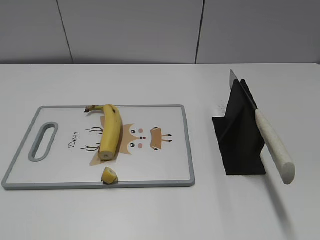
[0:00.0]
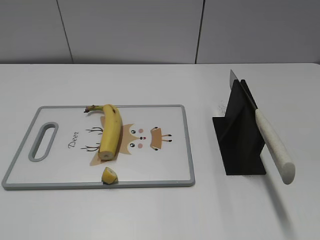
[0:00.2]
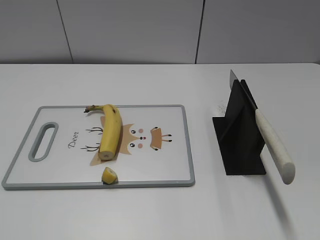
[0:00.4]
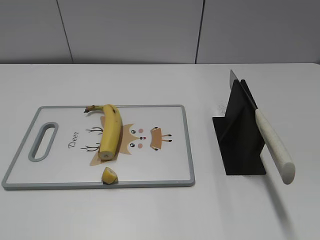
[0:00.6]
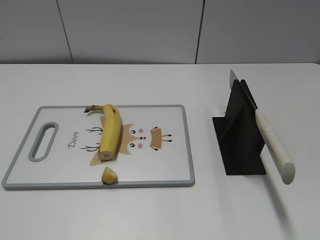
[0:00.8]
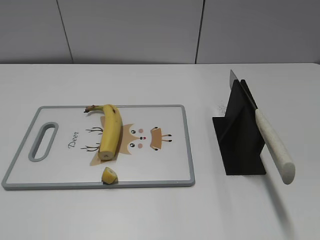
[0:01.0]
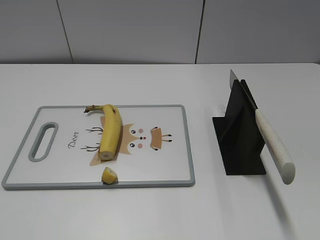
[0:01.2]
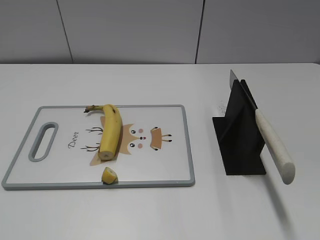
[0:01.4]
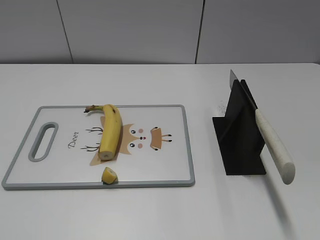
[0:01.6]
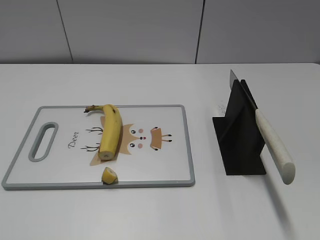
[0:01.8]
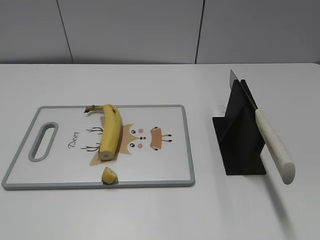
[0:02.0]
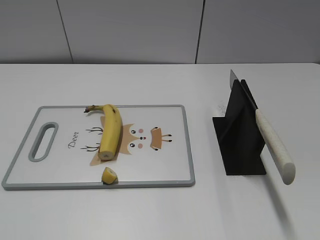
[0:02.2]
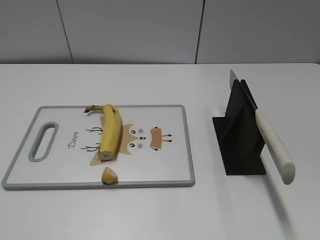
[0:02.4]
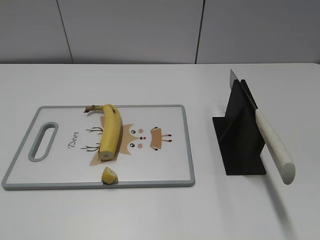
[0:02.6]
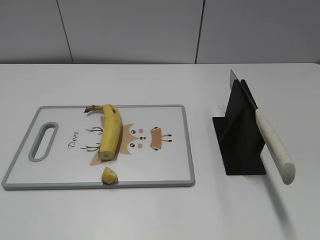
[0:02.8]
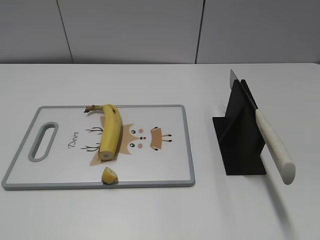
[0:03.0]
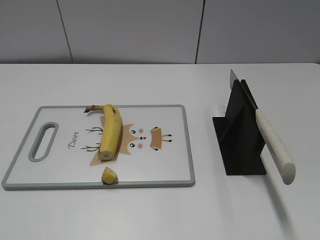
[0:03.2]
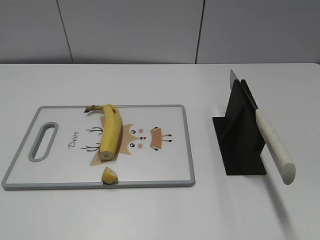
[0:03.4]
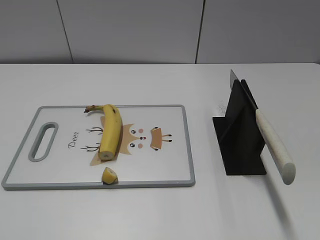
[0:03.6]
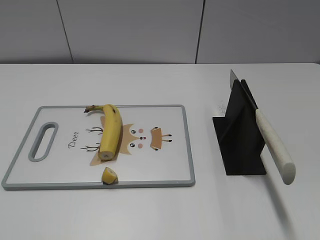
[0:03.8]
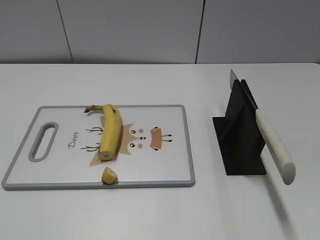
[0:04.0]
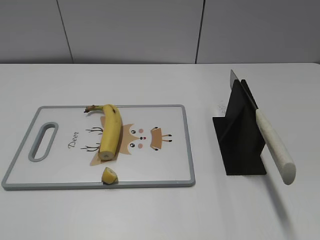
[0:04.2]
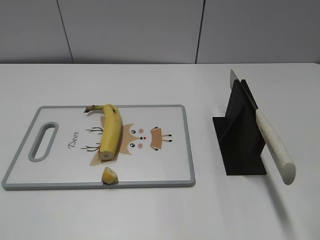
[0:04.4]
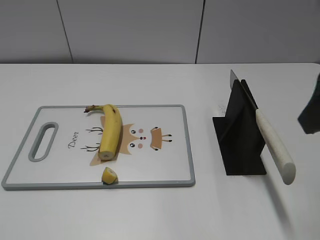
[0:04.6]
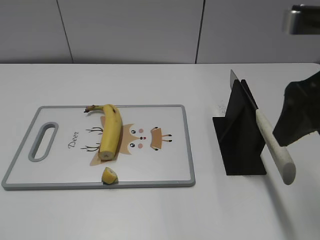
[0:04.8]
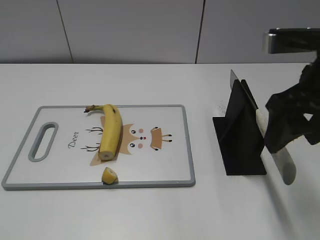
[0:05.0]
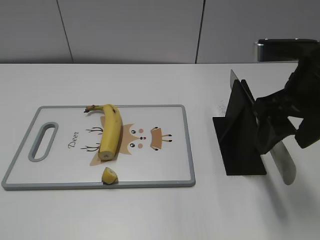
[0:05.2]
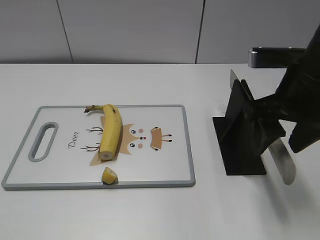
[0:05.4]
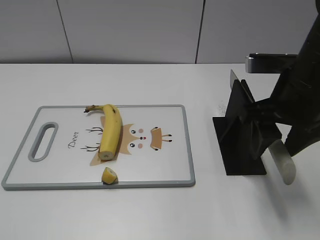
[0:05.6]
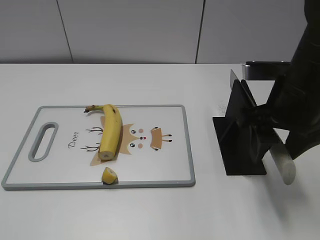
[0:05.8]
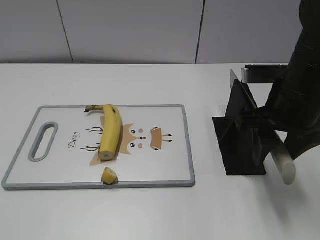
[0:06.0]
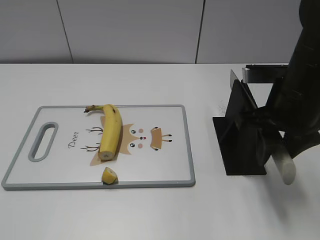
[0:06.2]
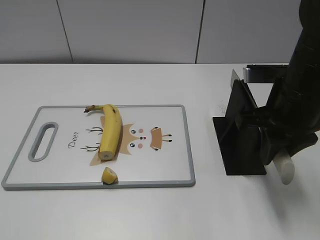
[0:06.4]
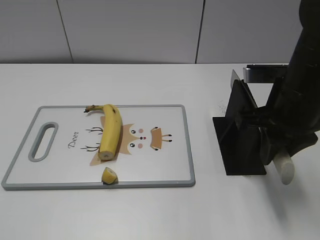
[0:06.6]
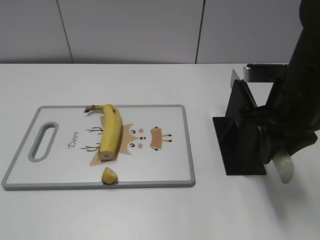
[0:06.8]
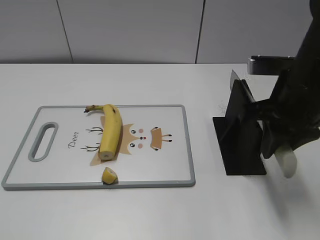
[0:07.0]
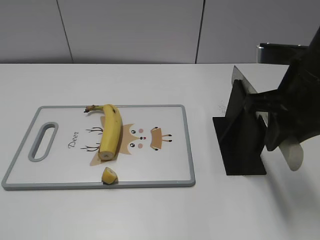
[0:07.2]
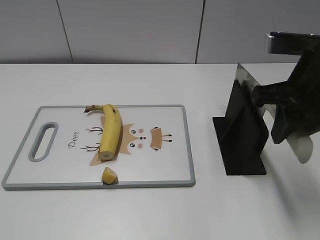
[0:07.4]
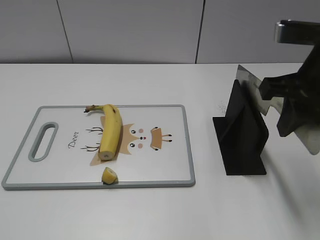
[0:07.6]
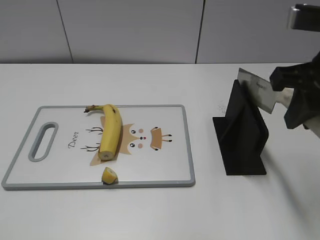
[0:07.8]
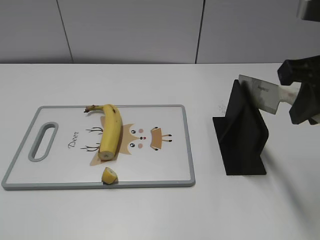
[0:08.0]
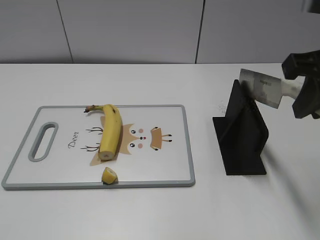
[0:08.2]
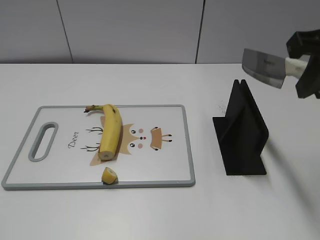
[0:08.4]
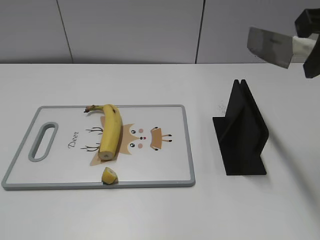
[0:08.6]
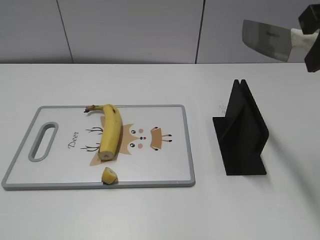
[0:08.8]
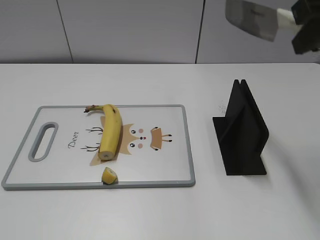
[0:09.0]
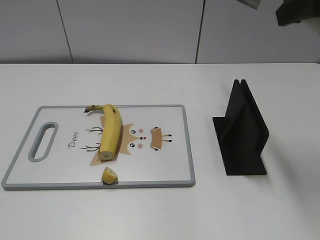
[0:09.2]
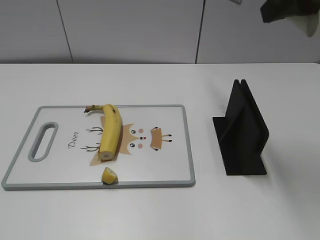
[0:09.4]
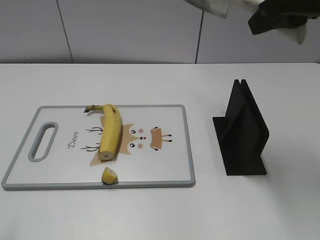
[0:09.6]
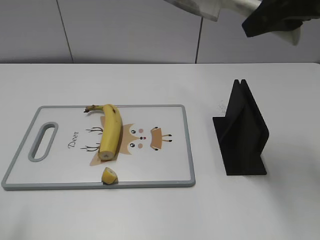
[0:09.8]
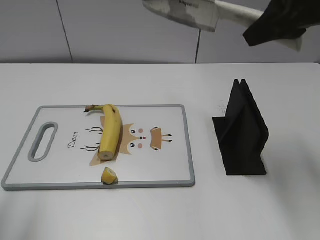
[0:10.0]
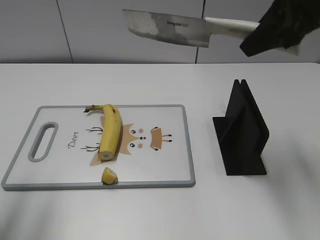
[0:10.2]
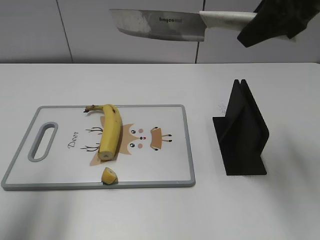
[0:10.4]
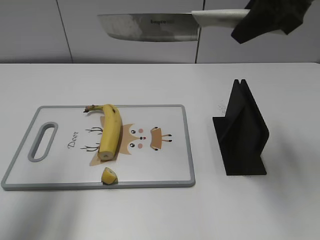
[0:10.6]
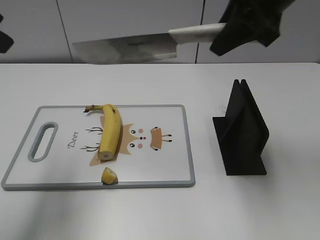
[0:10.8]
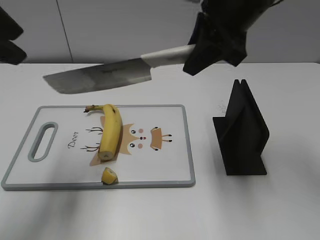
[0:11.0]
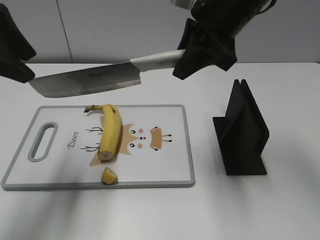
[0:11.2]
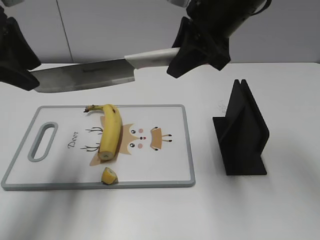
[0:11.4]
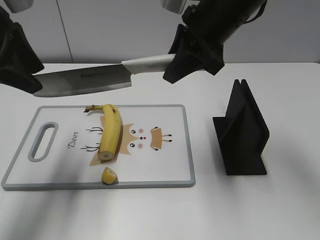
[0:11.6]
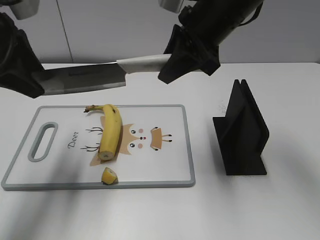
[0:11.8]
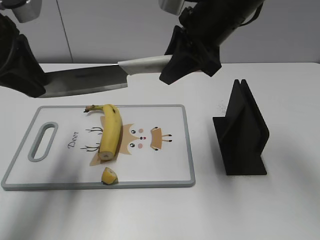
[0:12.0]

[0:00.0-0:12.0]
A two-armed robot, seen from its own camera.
Task of the whole recording: cut banana.
Step, 0:00.0 to 0:08.0: Grab the knife handle with your right hand.
0:04.4 to 0:06.0: The right gripper moves downward, forward and to the left, about 15 cm, and closes its fingers.
0:06.0 to 0:07.6: The right gripper heads upward, covering roughly 5 cm, and closes.
0:07.6 to 0:09.0: The right gripper heads upward, covering approximately 10 cm.
0:09.0 to 0:10.4: The left gripper is displaced forward and upward by about 20 cm; the right gripper shifts about 5 cm forward.
0:10.4 to 0:12.0: The right gripper goes roughly 10 cm to the left and downward, while the left gripper is displaced forward and downward by about 15 cm.

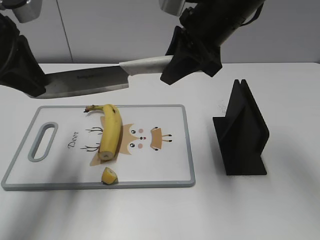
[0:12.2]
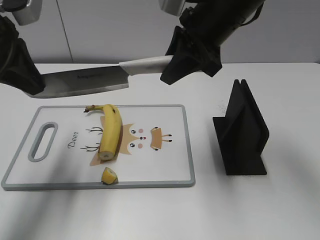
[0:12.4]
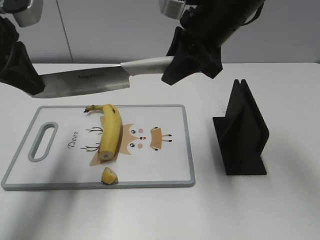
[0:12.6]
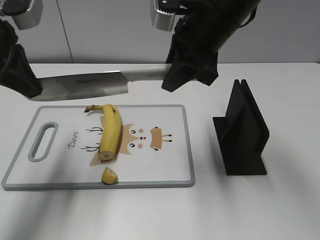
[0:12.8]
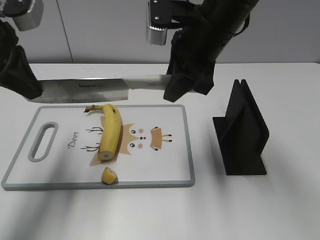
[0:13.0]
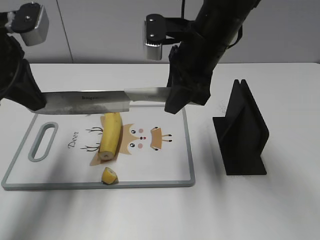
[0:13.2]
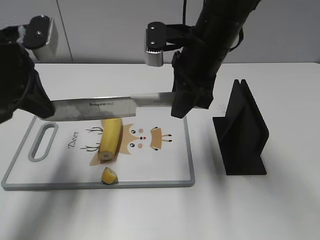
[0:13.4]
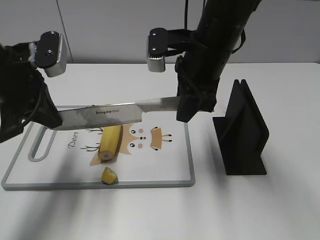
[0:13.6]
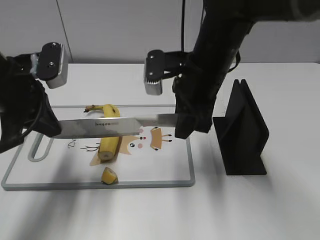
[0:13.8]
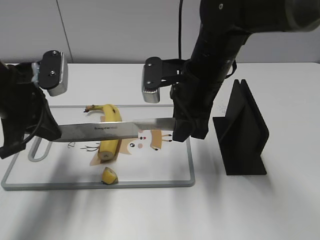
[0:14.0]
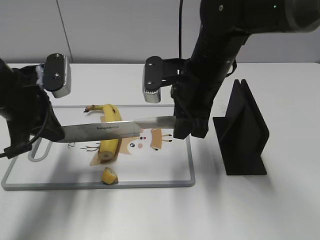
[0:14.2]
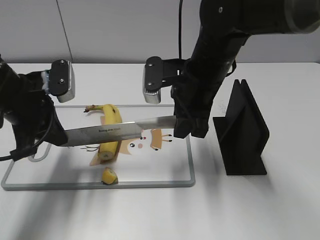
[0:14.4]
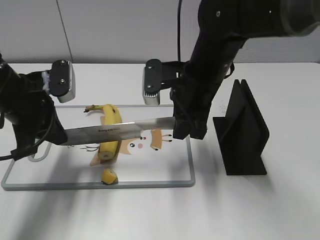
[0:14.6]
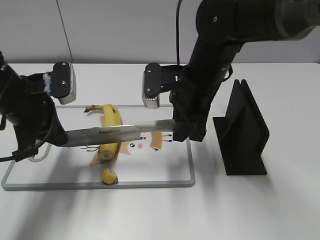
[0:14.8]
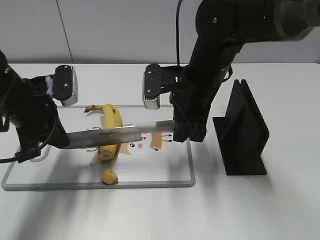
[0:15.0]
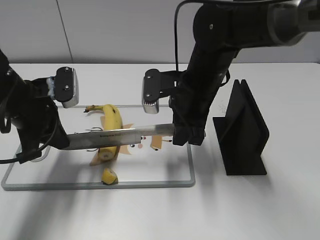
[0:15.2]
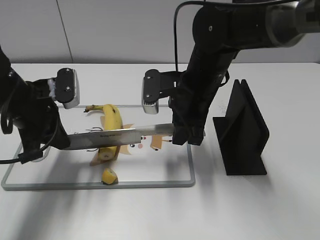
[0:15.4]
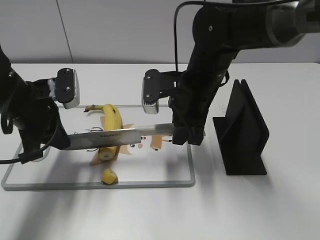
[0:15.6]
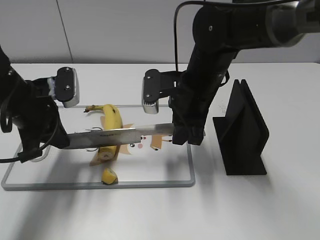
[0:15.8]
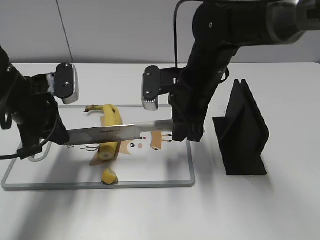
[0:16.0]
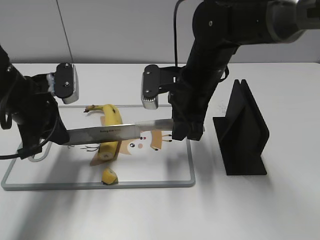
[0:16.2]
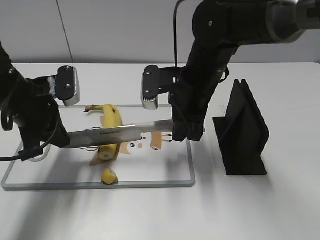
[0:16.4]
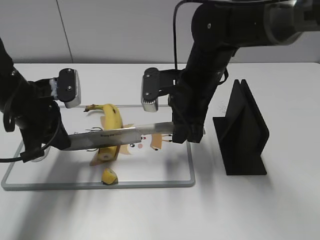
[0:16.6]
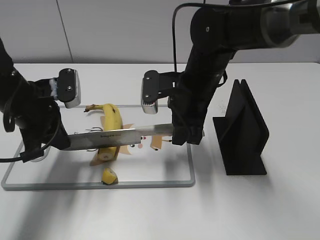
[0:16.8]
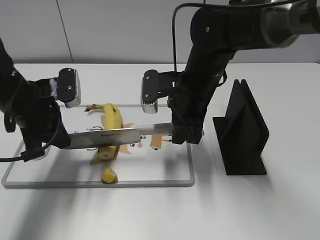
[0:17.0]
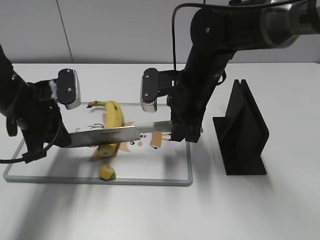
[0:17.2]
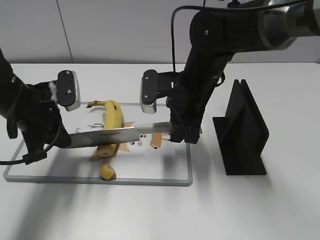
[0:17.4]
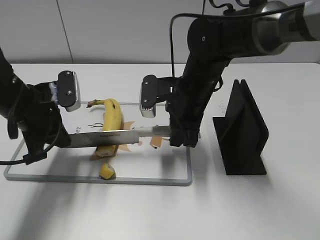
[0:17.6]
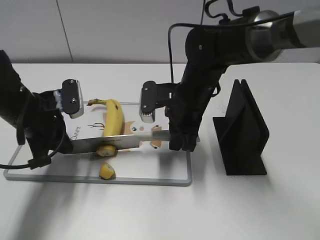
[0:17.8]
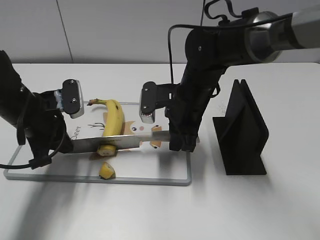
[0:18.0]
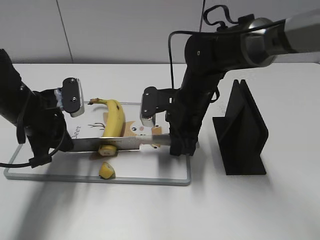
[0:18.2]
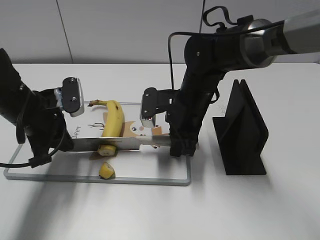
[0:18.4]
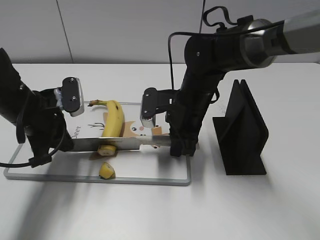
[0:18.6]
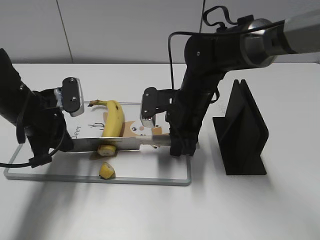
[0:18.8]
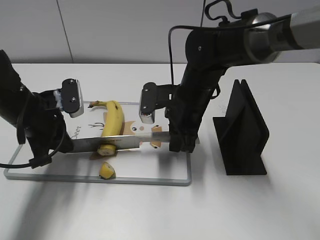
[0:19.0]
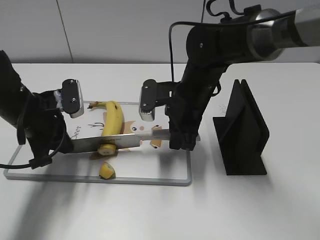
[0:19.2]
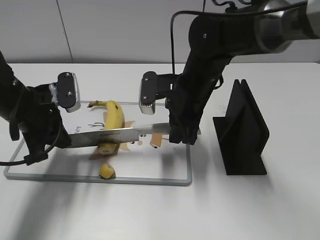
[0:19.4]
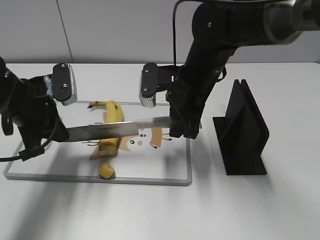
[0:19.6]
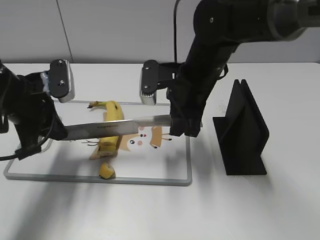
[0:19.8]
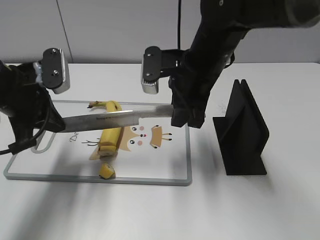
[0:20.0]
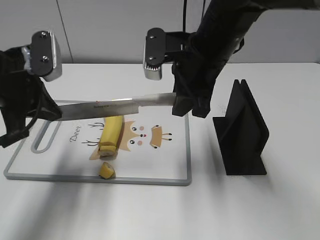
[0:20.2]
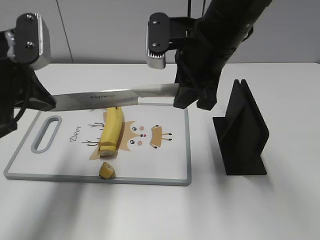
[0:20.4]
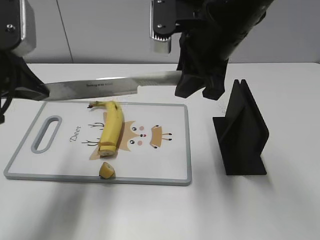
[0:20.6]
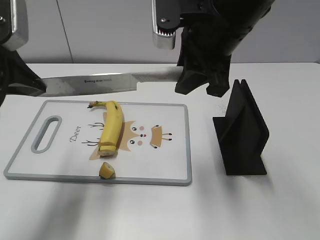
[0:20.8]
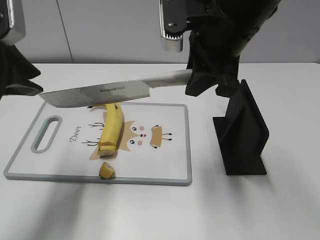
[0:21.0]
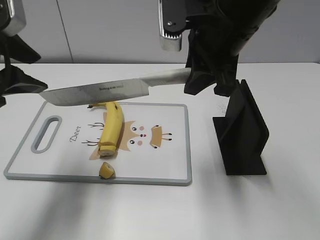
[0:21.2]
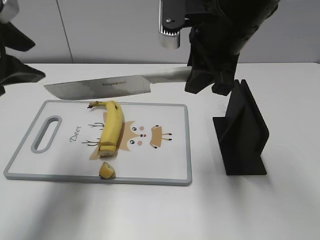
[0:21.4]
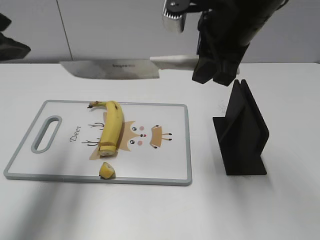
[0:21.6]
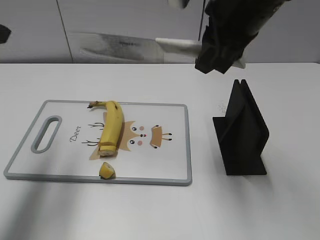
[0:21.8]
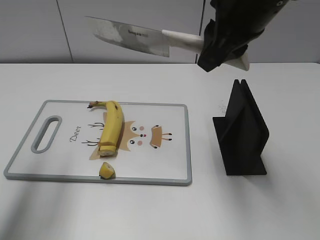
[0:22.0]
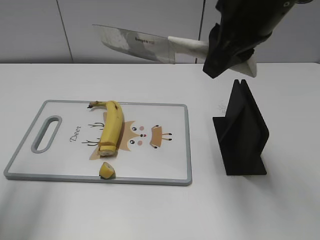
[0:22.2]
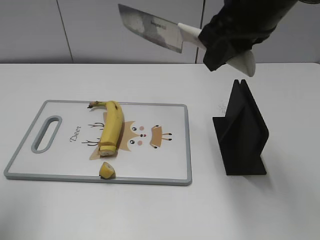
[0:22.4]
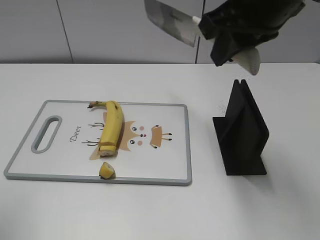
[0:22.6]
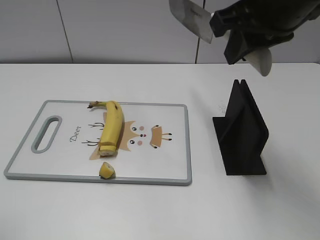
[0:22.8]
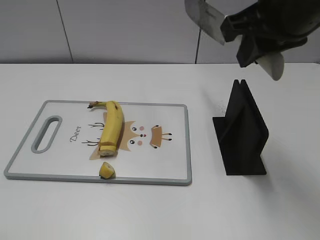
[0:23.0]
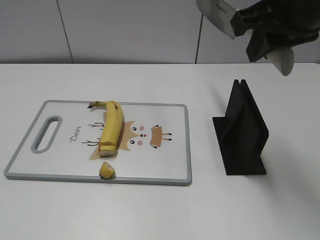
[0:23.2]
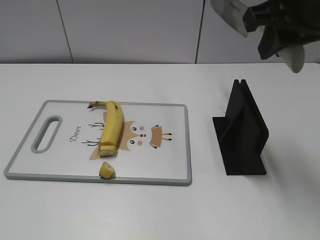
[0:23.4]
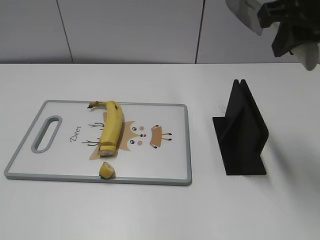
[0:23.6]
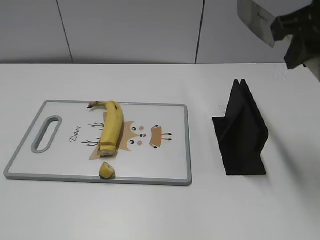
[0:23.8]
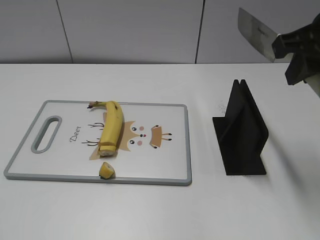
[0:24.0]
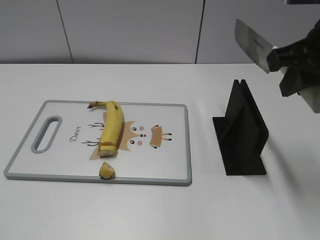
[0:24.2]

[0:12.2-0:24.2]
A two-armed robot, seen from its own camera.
Task of the whole recording: cut banana.
Step, 0:12.2 to 0:15.6: Lift the knife with your right hand.
Step, 0:15.8 to 0:22.4: Cut the banana with your right hand.
0:12.2 to 0:13.8: The two grippers go about 5 cm downward. The left gripper closes up.
0:13.8 to 0:15.2: The left gripper shifts roughly 5 cm downward.
0:15.2 to 0:16.6: Both grippers stay put.
0:16.6 to 0:18.2: The right gripper moves downward, about 5 cm.
0:18.2 to 0:19.8: The right gripper goes some 5 cm upward.
0:19.8 to 0:21.2: Both grippers move upward, some 10 cm. The left gripper opens its fingers.
0:21.2 to 0:22.6: The left gripper moves backward, to the left and upward, roughly 15 cm; the right gripper goes approximately 5 cm upward.
0:22.6 to 0:24.2: The right gripper moves to the right, approximately 10 cm, while the left gripper is displaced backward and downward by approximately 15 cm.
